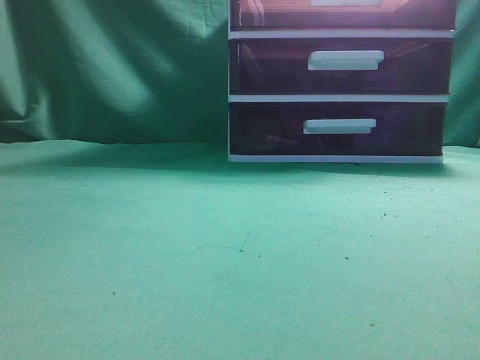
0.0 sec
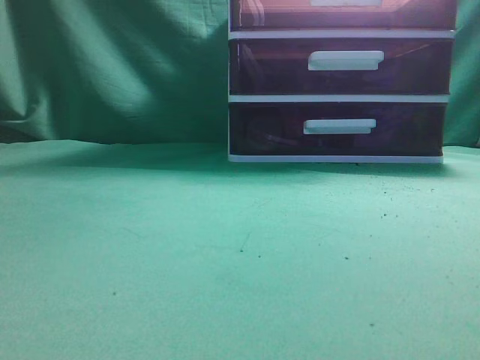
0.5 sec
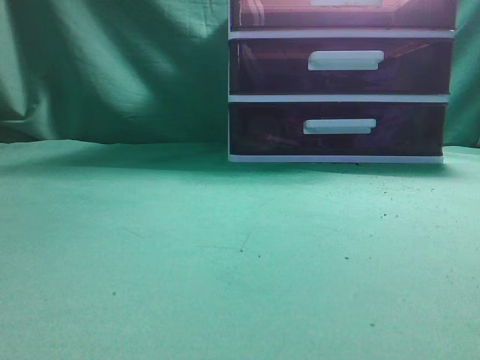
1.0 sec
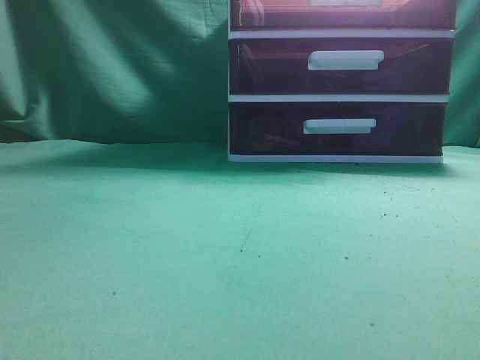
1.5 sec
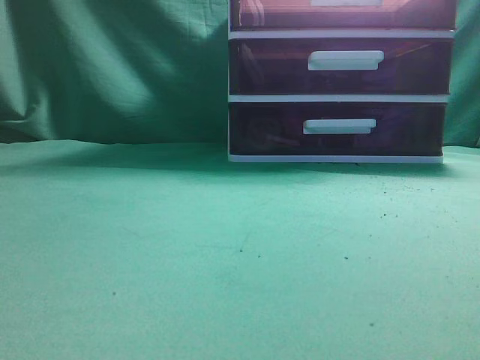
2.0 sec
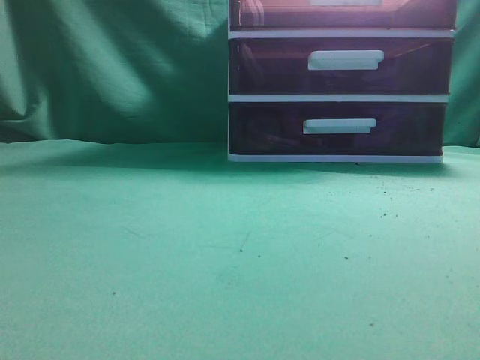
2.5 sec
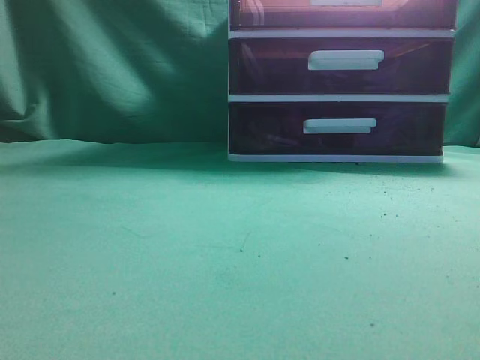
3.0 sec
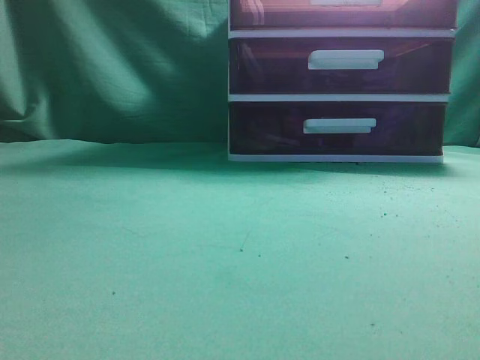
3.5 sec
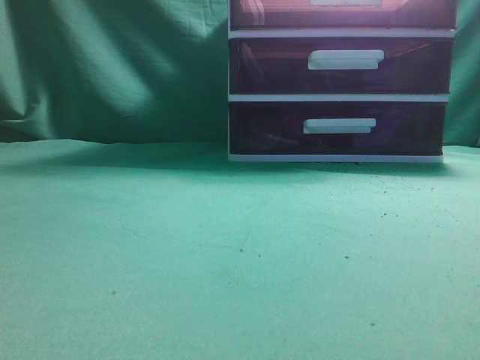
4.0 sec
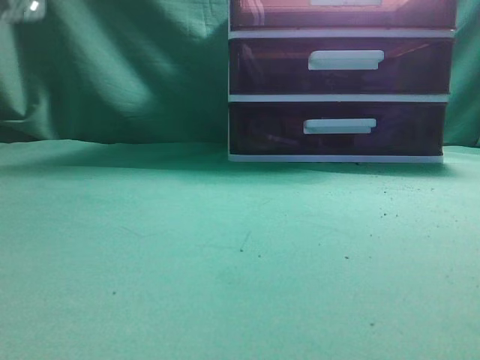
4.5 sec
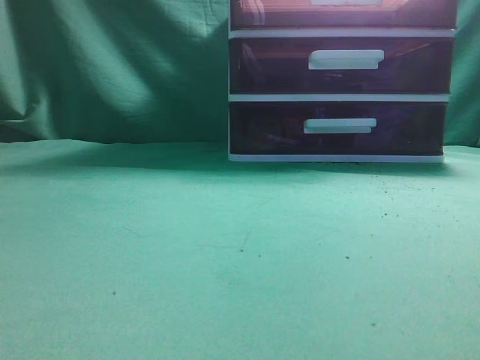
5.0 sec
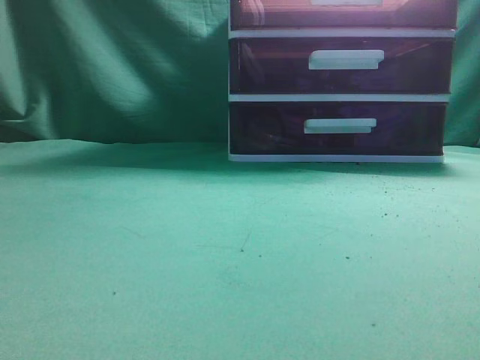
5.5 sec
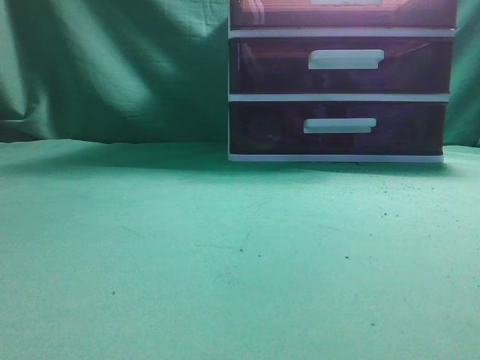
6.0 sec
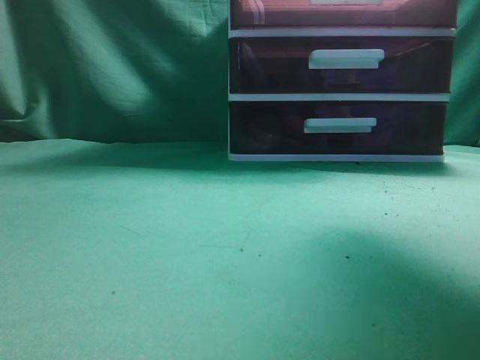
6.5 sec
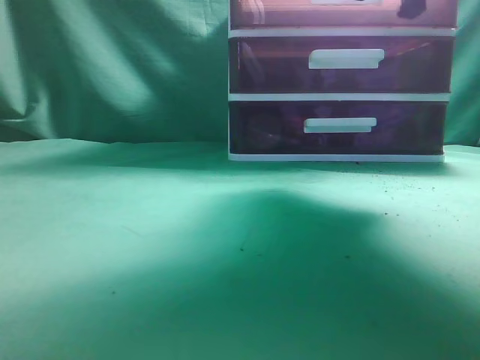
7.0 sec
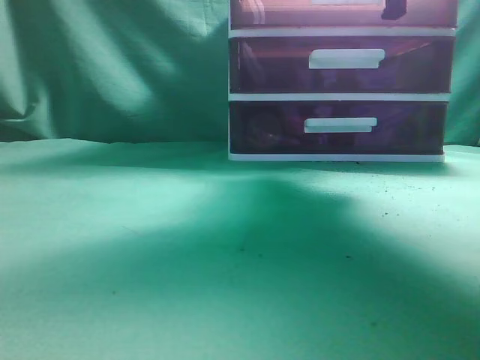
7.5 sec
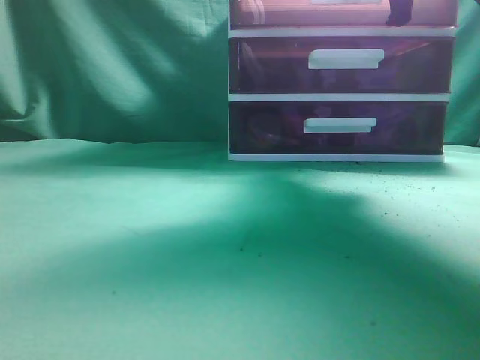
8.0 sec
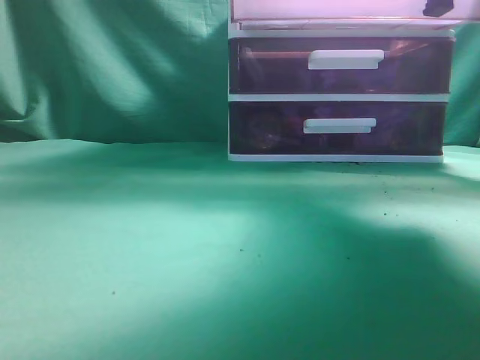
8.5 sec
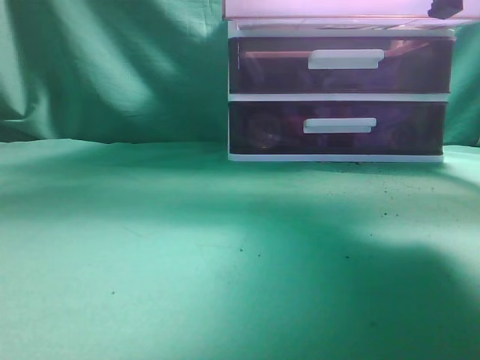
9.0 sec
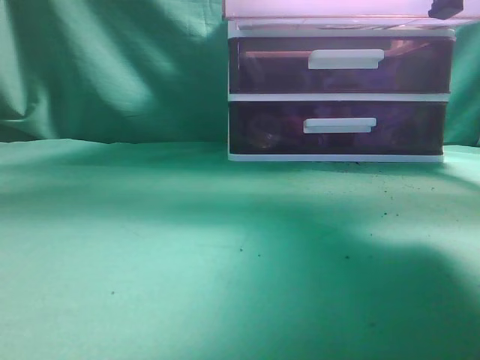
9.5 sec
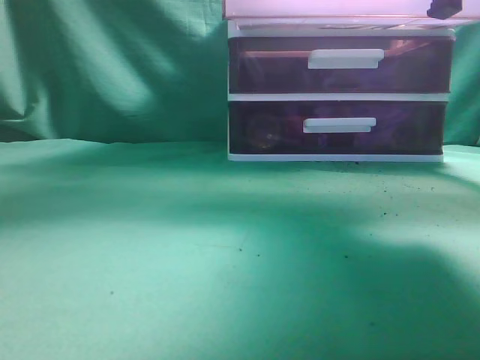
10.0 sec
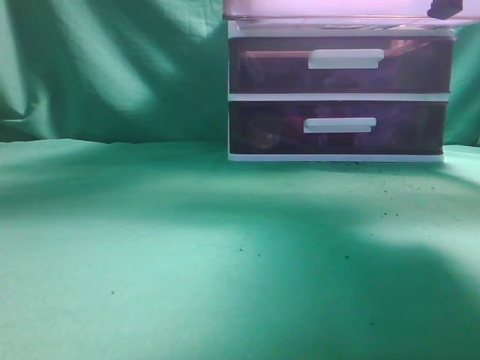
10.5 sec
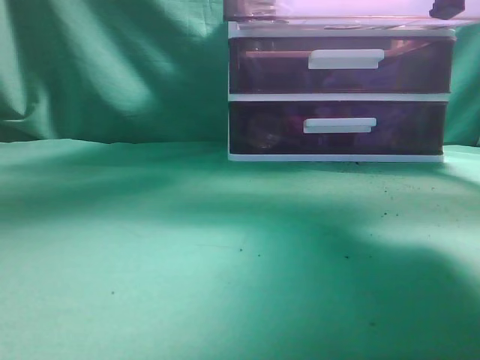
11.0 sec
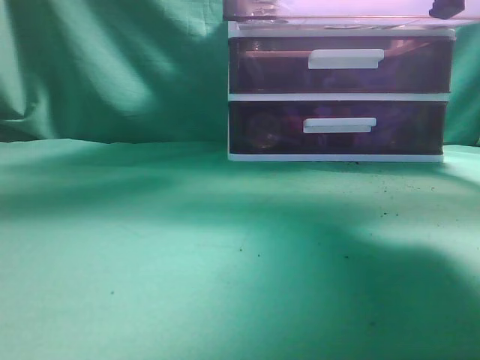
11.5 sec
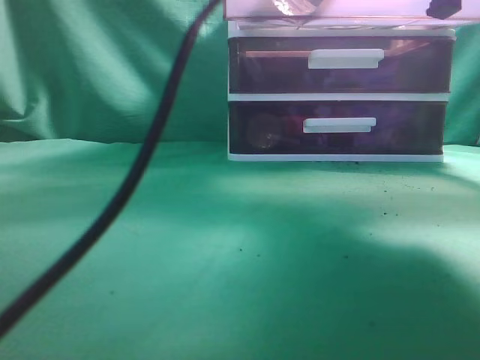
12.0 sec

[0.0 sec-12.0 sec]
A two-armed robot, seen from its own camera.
Task of the whole recording: place the water bottle into the drawer.
Step, 0.0 sec to 9.0 sec: Open the drawer.
6.0 sec to 8.0 sec: The right gripper goes roughly 25 cm forward, and opens, then closes once more.
8.0 sec to 10.0 sec: The left gripper is displaced forward, to the right and upward by approximately 25 cm; the right gripper heads backward, covering some 10 cm.
10.0 sec to 12.0 sec: The left gripper moves downward and to the right, roughly 10 cm, and opens.

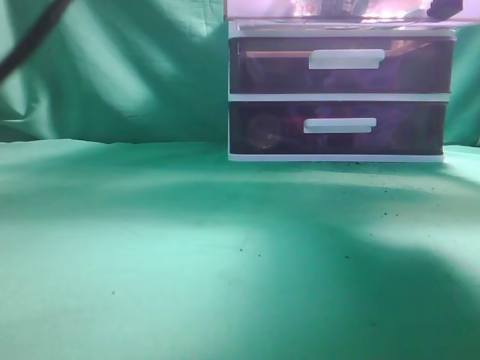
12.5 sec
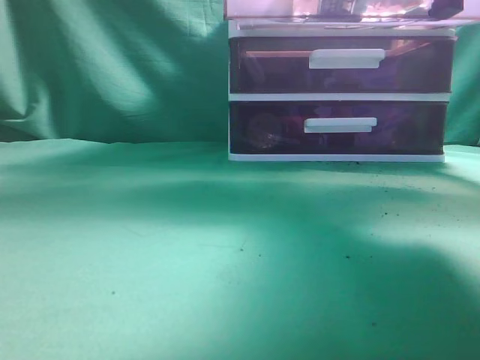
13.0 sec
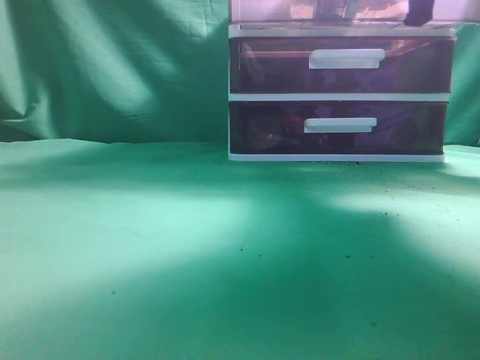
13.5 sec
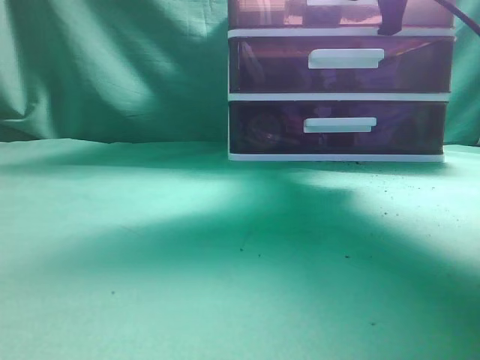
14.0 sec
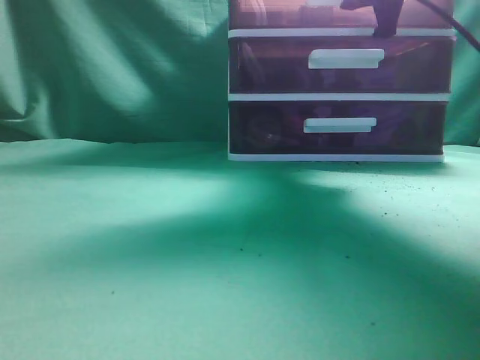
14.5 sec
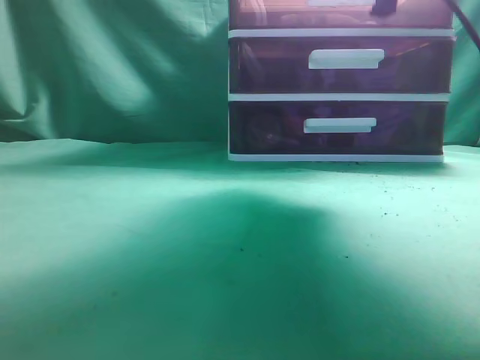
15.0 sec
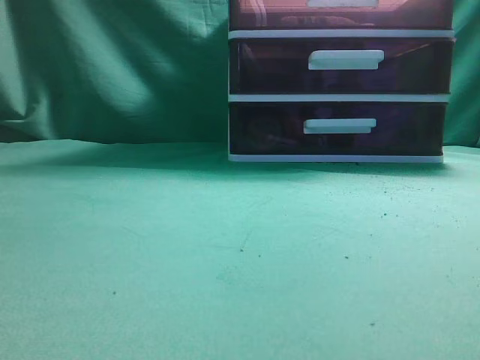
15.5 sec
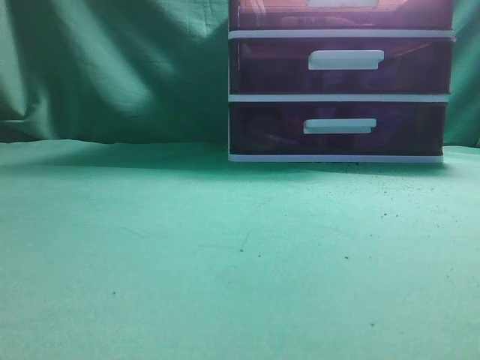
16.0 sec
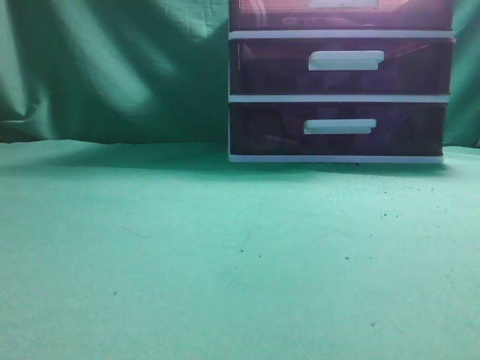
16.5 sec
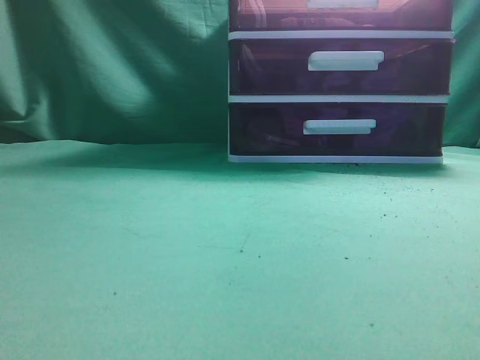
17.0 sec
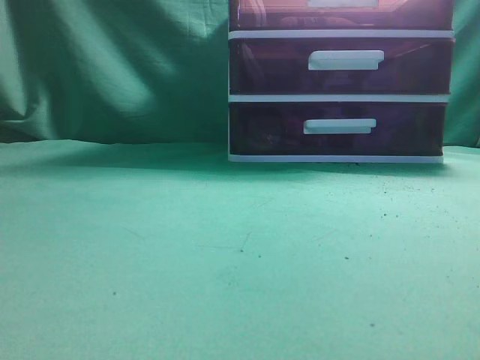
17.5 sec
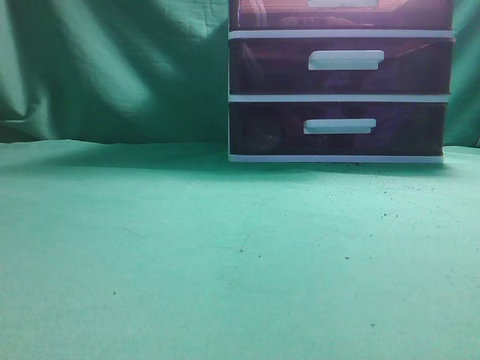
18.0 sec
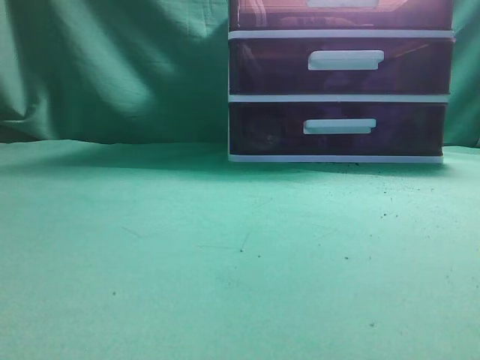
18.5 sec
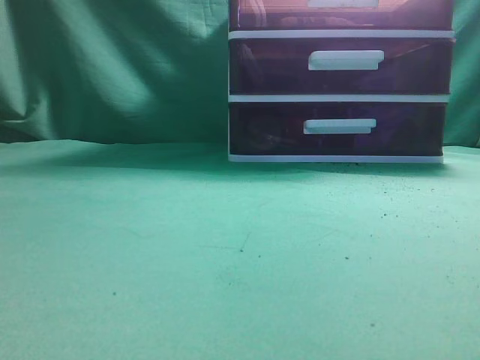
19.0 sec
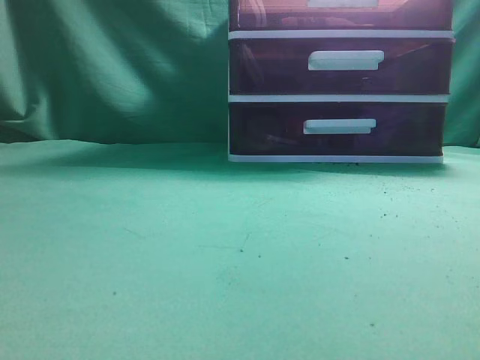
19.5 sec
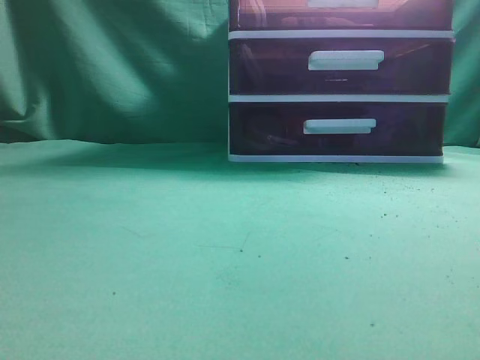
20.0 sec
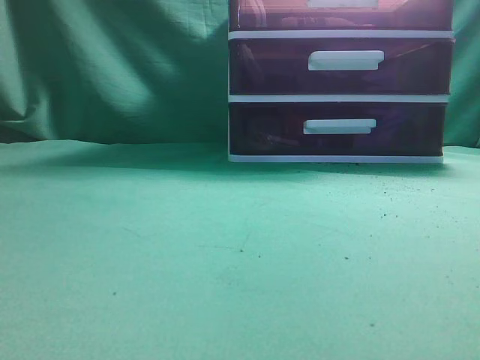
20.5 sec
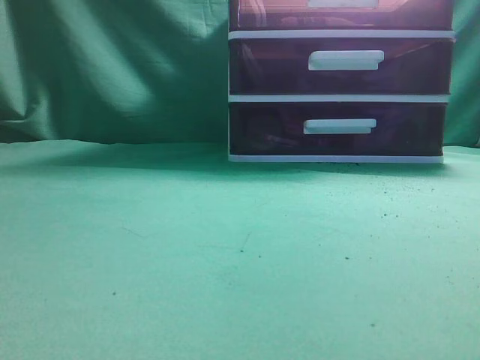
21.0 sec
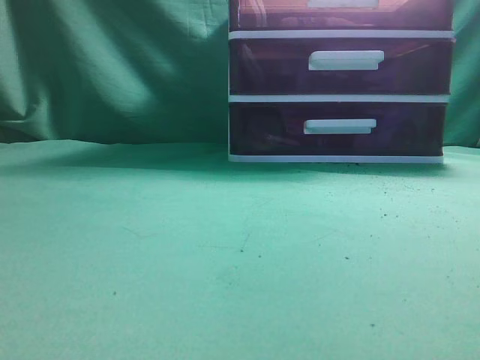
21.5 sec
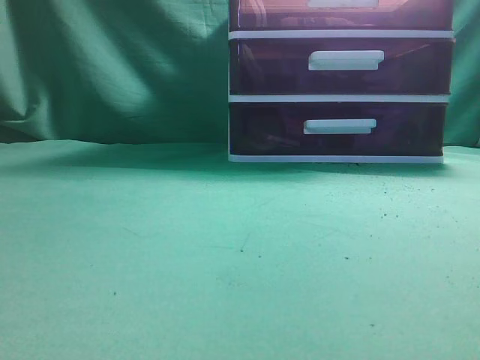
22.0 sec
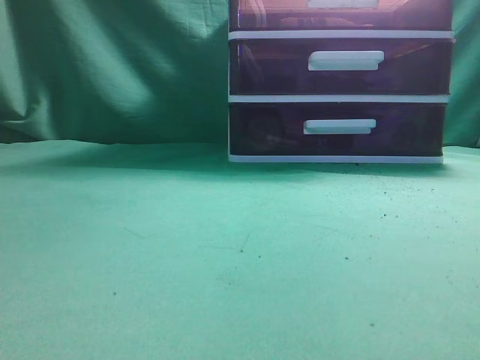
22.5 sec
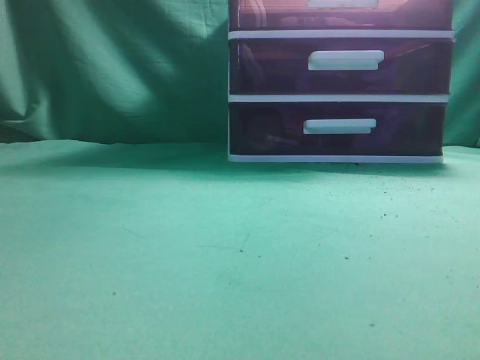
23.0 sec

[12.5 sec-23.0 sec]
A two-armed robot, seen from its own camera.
Task of the whole recording: place the water bottle into the drawer.
Step, 13.0 sec to 15.0 sec: Close the drawer.
12.5 sec to 14.5 sec: The left gripper is displaced to the left, backward and upward by some 20 cm, and closes, while the right gripper goes some 10 cm forward, and opens up.
14.5 sec to 16.5 sec: The right gripper travels backward and upward by some 35 cm, and closes its fingers; the left gripper travels backward and to the left by some 35 cm.
